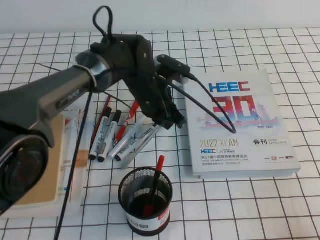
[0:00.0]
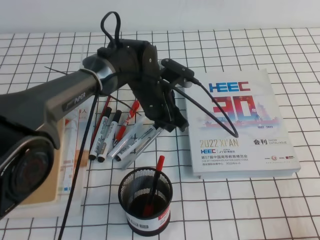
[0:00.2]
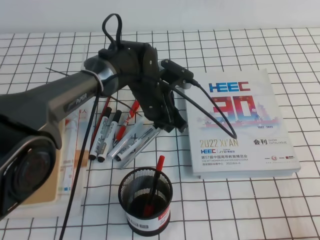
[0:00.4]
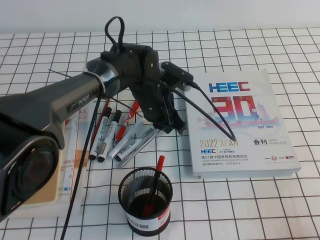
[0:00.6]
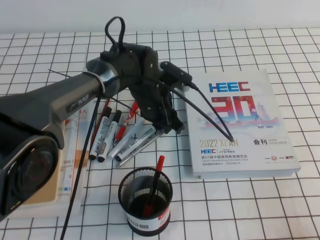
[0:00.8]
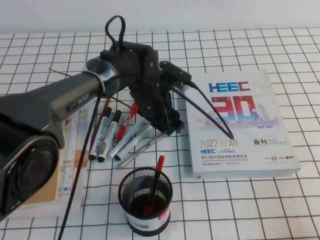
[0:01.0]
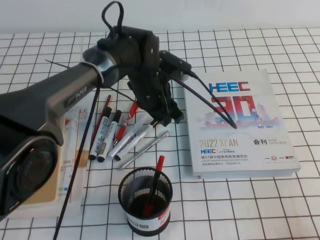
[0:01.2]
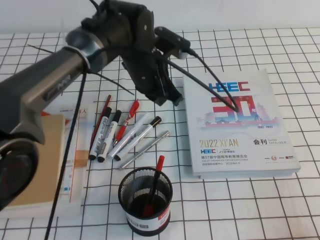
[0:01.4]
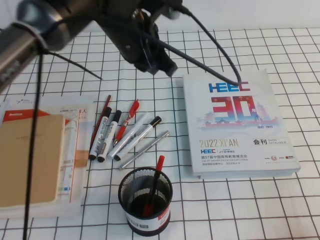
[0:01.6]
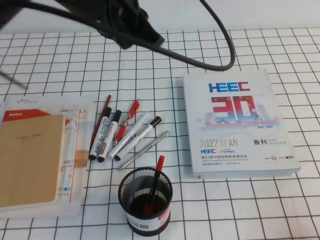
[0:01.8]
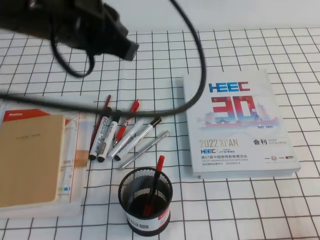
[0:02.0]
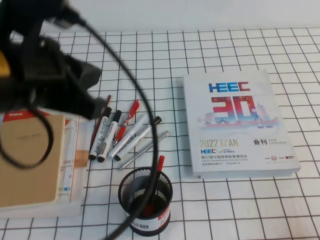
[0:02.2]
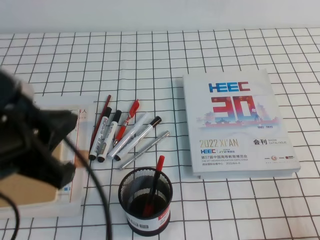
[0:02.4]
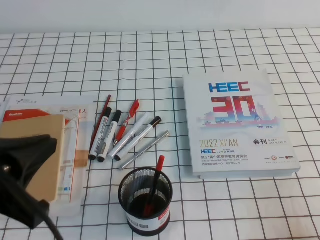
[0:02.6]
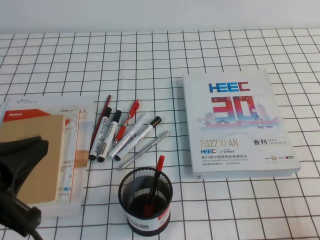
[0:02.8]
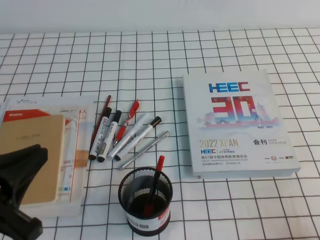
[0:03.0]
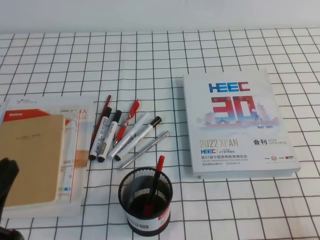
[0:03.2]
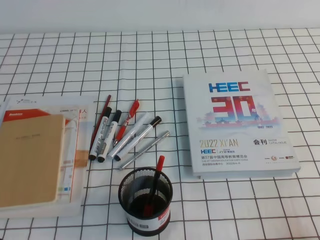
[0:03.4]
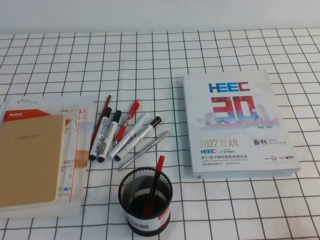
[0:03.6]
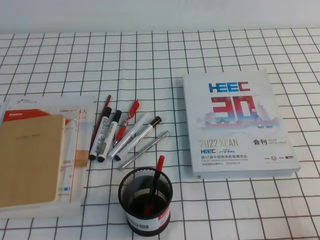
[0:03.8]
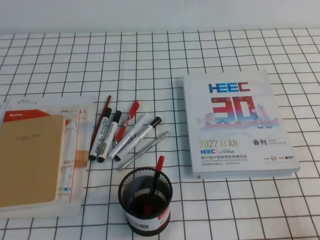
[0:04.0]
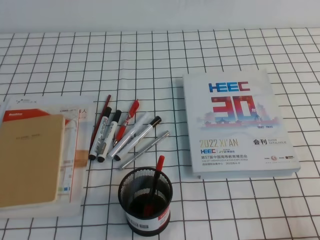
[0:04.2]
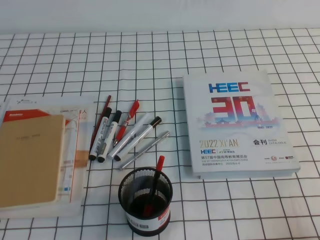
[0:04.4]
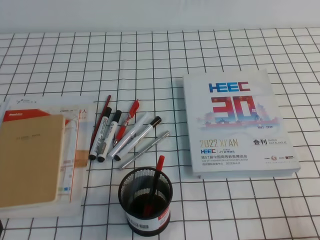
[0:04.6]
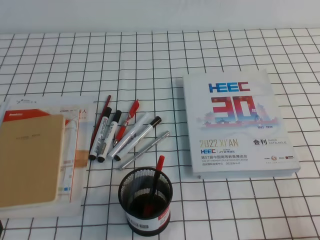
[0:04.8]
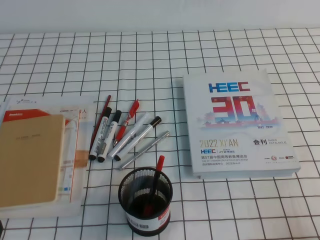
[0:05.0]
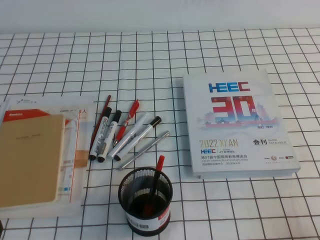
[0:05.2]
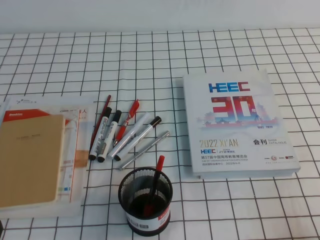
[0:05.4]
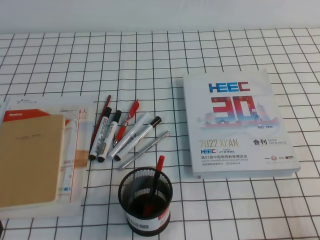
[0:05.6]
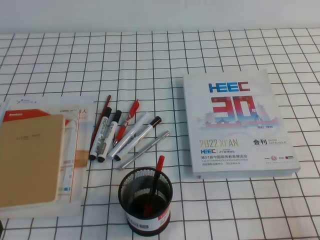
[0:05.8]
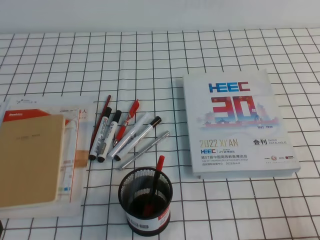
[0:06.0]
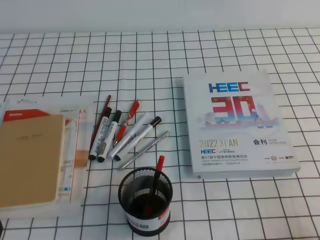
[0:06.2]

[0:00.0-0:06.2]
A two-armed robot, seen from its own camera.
Step, 0:00.0 to 0:06.2: Pick up the pen from the pen holder.
0:00.0 to 0:01.6: The left gripper shifts approximately 15 cm upward, and opens, then closes again.
0:01.6 to 0:03.2: The left gripper heads backward and to the left, covering roughly 35 cm.
0:03.2 to 0:04.6: The left gripper moves downward, about 10 cm.
0:04.6 to 0:06.2: Neither gripper changes place.
